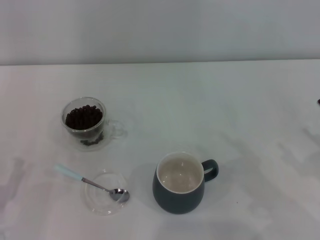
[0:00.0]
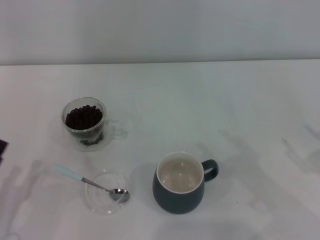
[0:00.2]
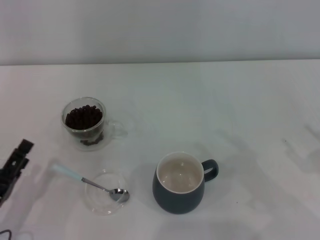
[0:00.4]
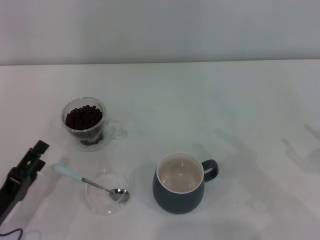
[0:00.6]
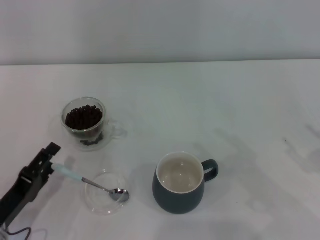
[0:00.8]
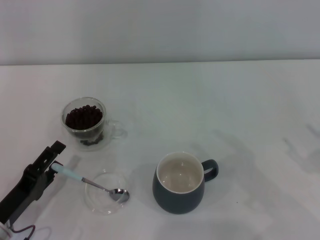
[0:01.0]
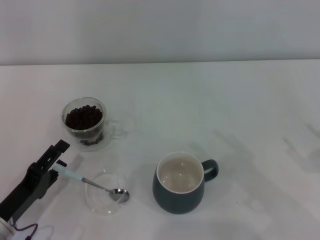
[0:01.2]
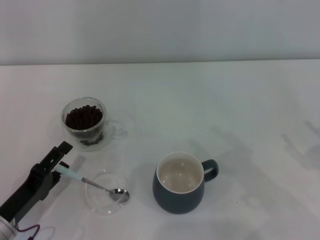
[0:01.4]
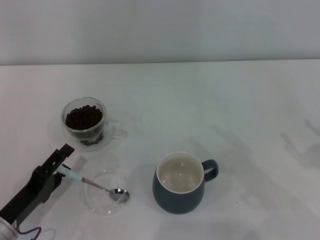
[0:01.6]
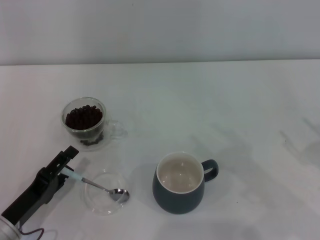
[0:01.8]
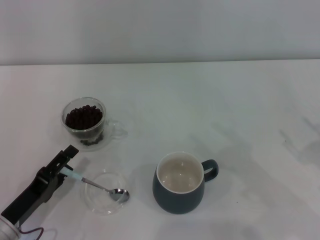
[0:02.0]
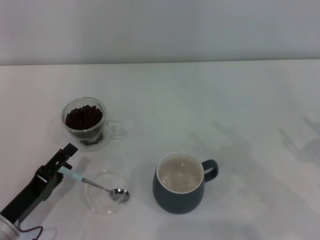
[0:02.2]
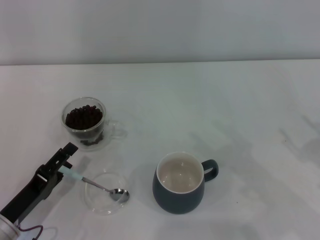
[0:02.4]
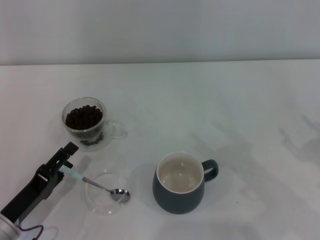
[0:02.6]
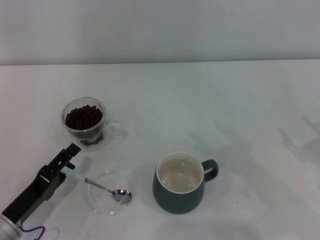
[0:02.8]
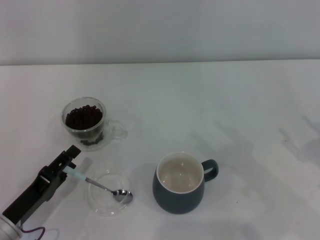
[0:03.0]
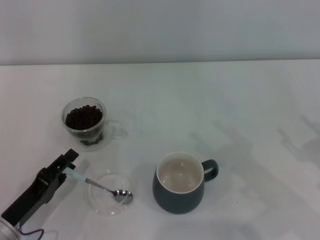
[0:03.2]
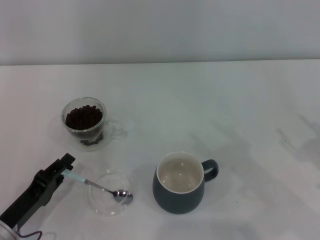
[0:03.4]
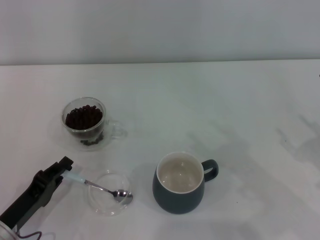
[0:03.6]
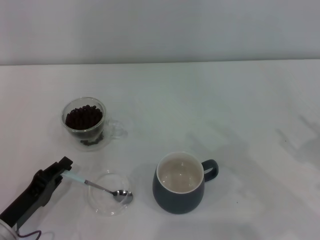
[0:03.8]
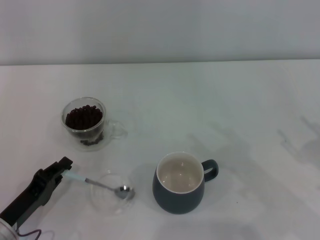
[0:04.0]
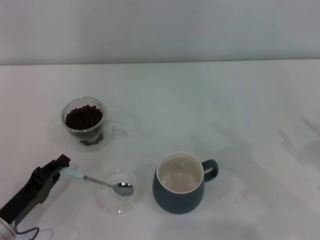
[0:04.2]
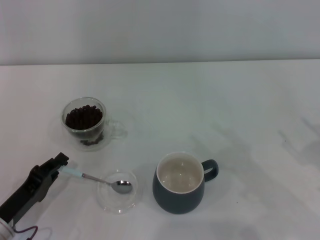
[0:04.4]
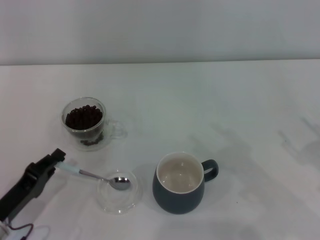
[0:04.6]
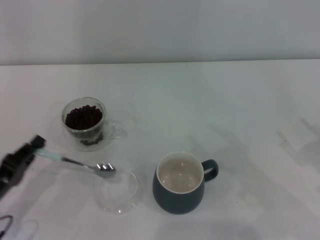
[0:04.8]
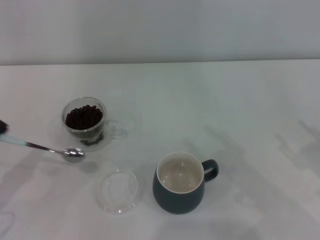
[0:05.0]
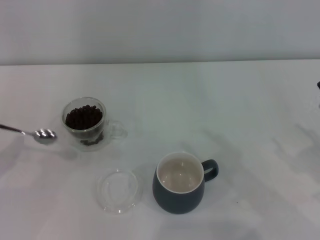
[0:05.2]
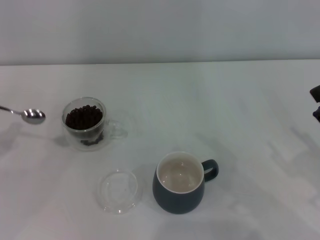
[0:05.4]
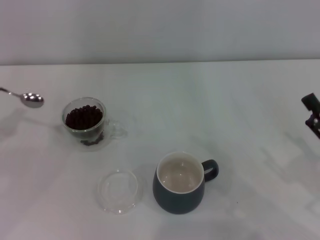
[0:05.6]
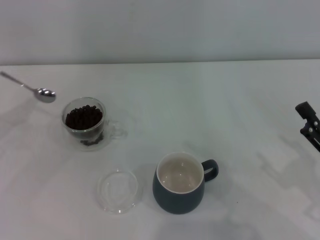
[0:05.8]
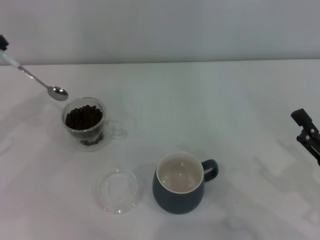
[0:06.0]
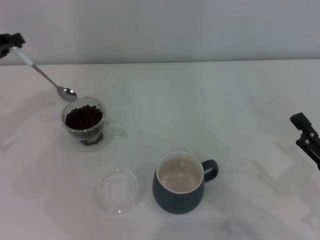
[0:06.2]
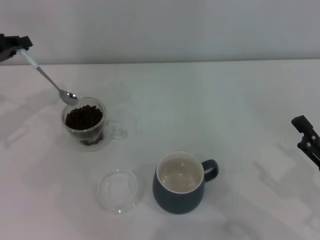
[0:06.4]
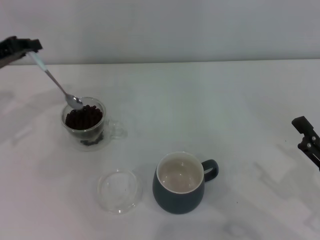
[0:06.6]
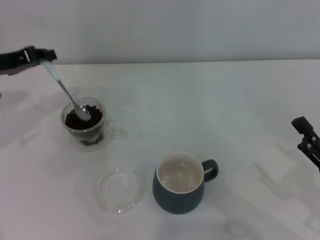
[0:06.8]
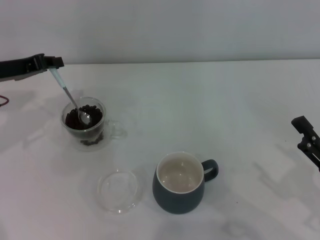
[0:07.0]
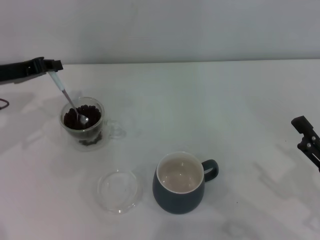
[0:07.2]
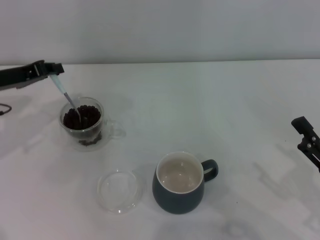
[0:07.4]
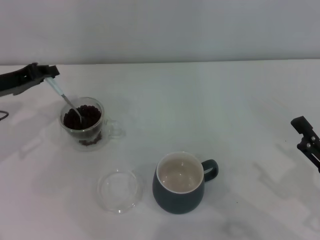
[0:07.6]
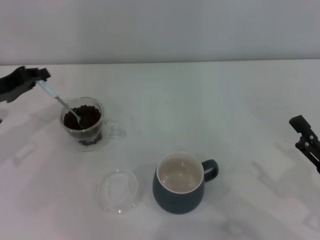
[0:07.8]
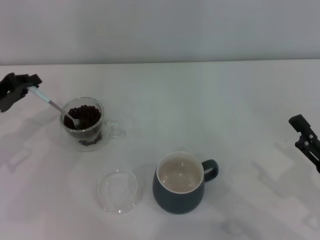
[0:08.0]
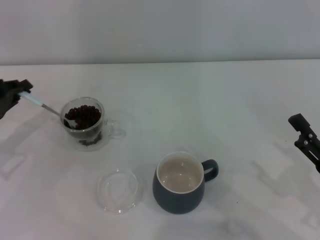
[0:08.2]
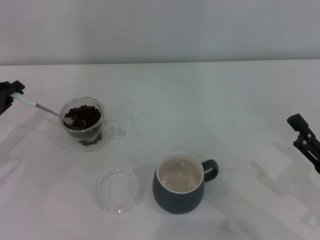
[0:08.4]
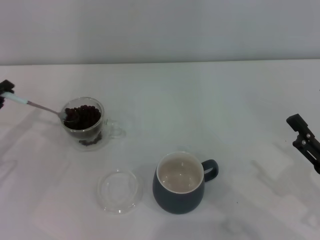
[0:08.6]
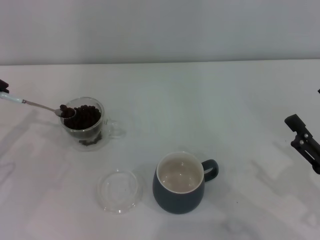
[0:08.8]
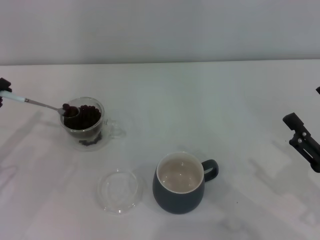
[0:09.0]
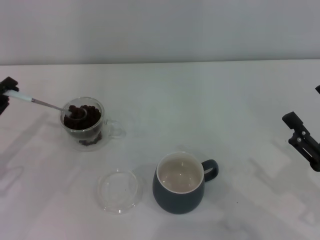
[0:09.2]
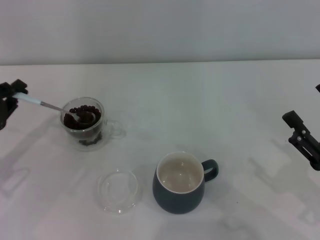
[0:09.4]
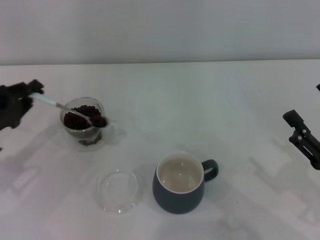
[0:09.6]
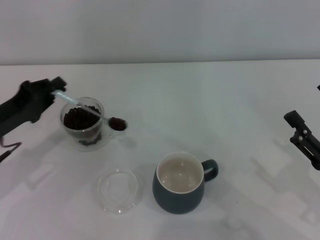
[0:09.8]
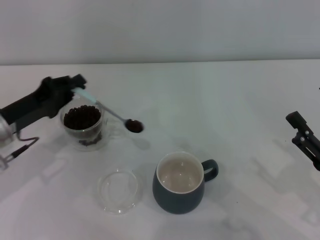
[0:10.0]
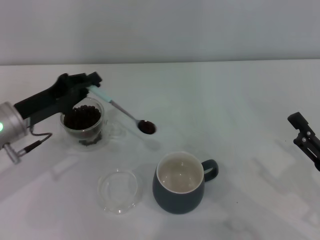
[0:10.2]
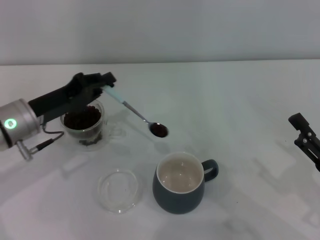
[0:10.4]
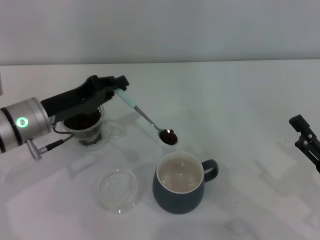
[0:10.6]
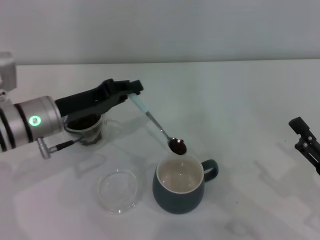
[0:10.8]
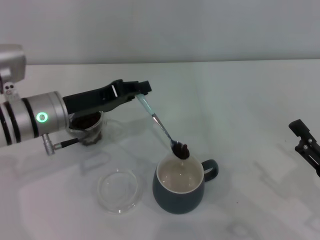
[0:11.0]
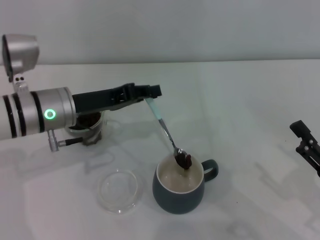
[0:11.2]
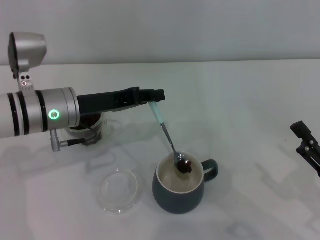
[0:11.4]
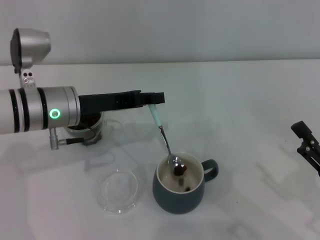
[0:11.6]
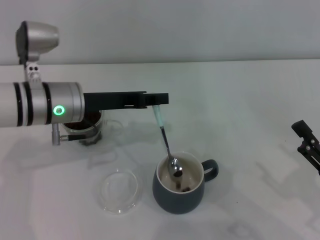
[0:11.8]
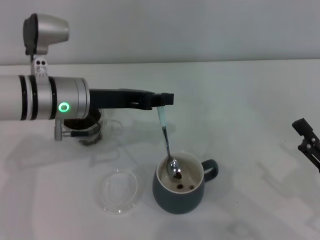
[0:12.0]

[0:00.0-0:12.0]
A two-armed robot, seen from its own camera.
Task of the whole recording: Use a blue spoon to take out the coffee beans from the glass and pour them into the gray cup.
Step, 0:00.0 to 0:04.8: Pick up the spoon with the right gripper.
0:00.0 to 0:01.6: The left gripper goes about 5 cm to the right.
0:01.6 to 0:03.0: Both grippers stay put.
0:03.0 to 0:04.4: The left gripper closes.
0:04.4 to 0:06.0: The left gripper heads forward, upward and to the left, covering some 25 cm.
0:06.0 to 0:07.6: The left gripper travels to the right by approximately 5 cm.
0:07.6 to 0:09.0: The left gripper travels backward by roughly 10 cm.
0:09.0 to 0:10.4: The left gripper heads to the right, covering approximately 10 cm.
0:10.4 to 0:12.0: The left gripper is displaced to the right and upward by some 10 cm.

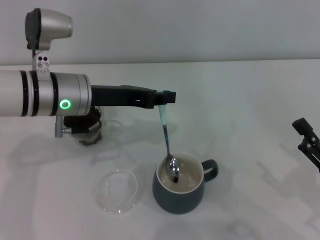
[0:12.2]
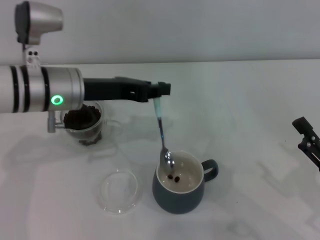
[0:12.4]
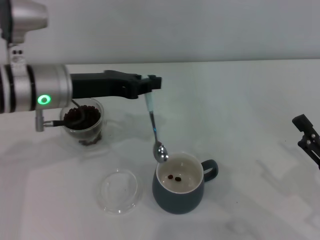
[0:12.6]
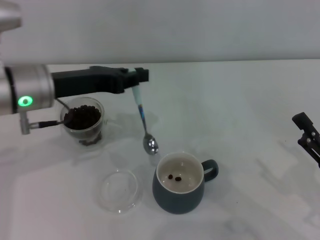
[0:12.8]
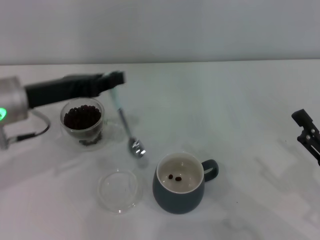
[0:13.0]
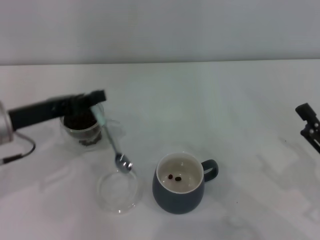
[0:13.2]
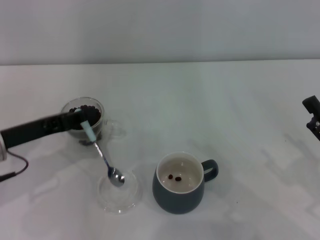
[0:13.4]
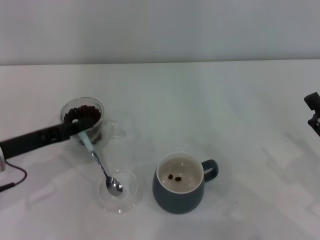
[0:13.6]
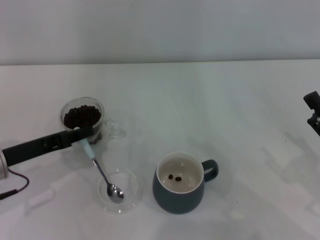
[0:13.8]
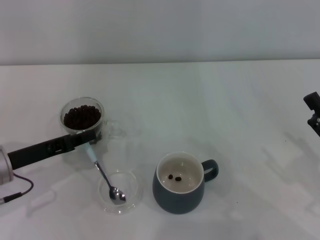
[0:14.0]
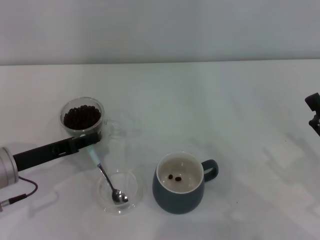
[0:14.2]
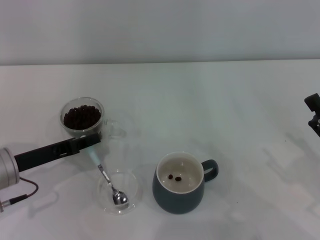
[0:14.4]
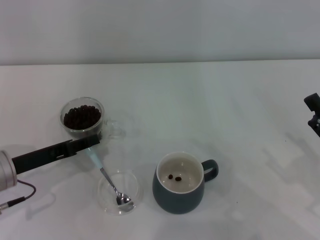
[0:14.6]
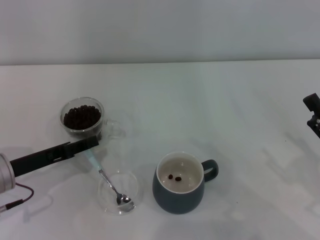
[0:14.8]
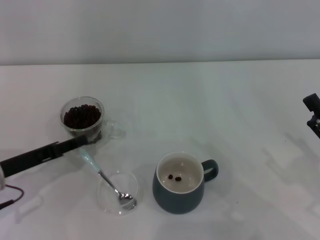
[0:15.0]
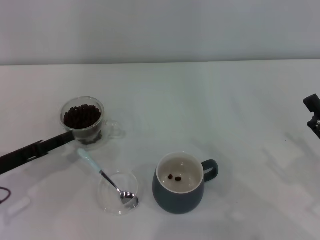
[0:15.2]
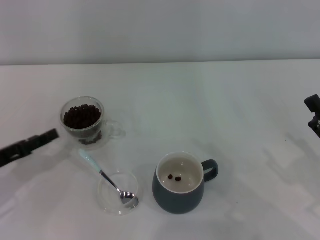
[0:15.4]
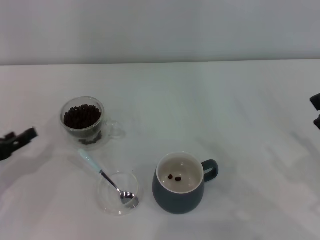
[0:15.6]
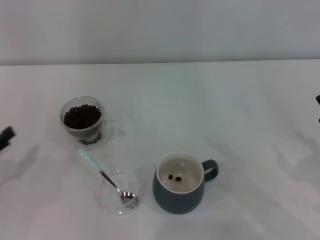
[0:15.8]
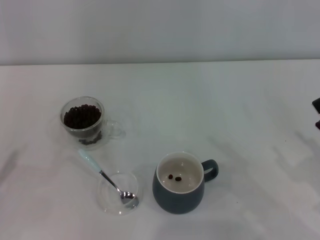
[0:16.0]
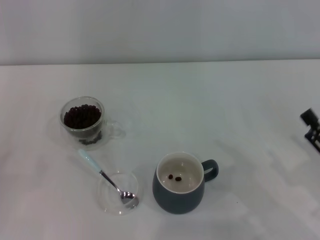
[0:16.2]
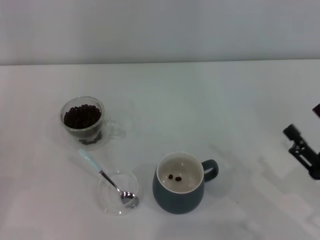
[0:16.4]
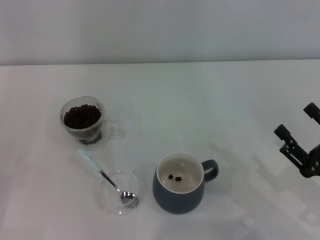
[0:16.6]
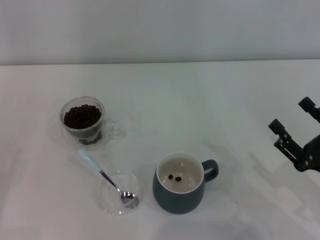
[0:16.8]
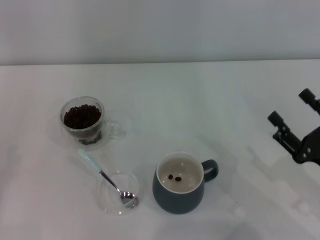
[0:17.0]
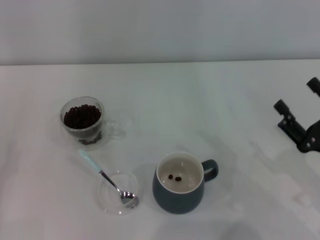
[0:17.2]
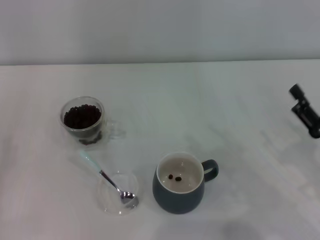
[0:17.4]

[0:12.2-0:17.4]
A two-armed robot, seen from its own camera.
Task of the whole recording: Use a blue spoon to take out the coffee beans from the glass and pour them into the gray cup.
0:12.2 to 0:14.0: The left gripper goes roughly 15 cm to the left, downward and backward.
0:14.0 to 0:15.6: The left gripper is displaced to the left by roughly 10 cm, and opens its fingers.
0:15.6 to 0:17.4: The left gripper goes approximately 5 cm backward and to the left.

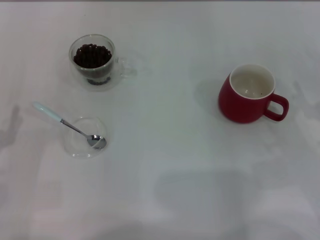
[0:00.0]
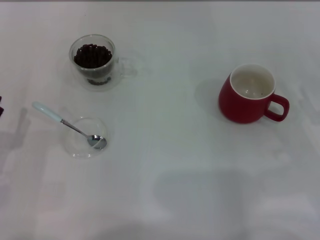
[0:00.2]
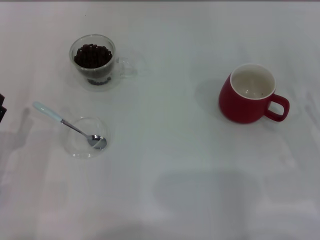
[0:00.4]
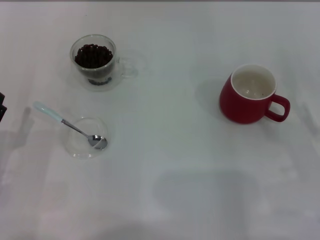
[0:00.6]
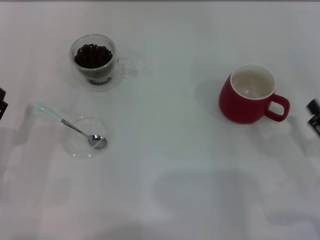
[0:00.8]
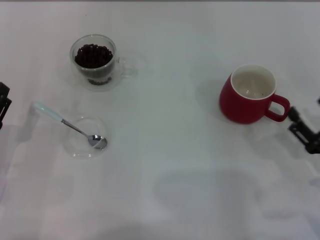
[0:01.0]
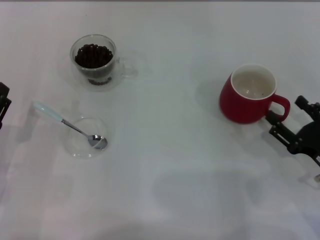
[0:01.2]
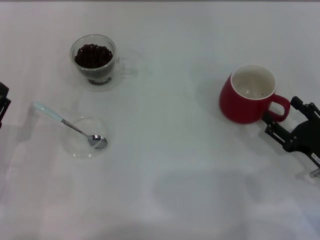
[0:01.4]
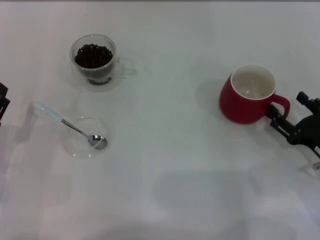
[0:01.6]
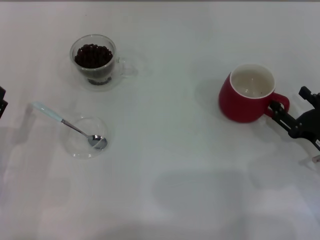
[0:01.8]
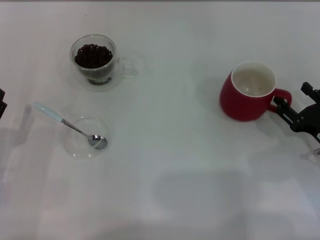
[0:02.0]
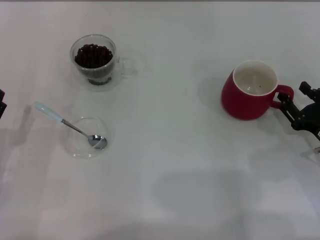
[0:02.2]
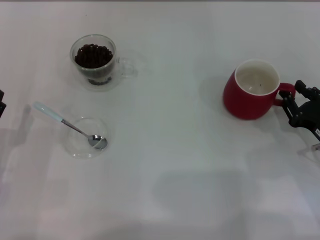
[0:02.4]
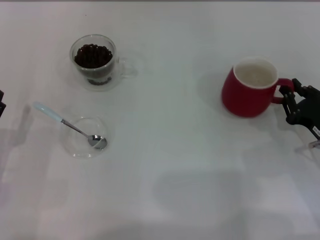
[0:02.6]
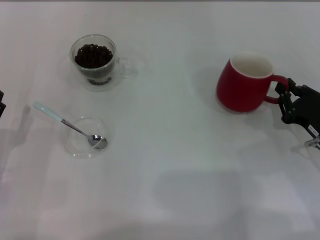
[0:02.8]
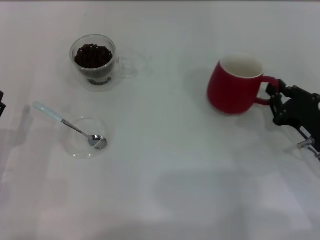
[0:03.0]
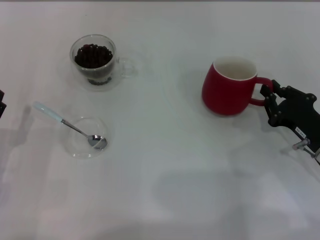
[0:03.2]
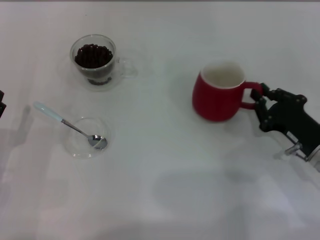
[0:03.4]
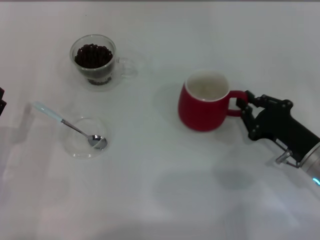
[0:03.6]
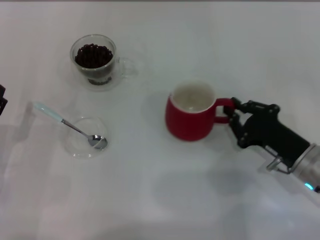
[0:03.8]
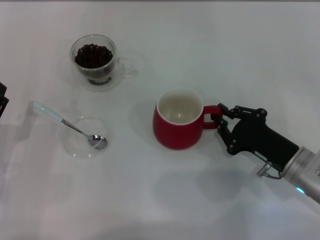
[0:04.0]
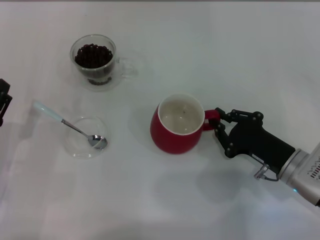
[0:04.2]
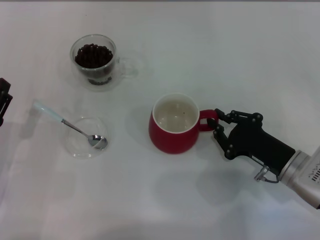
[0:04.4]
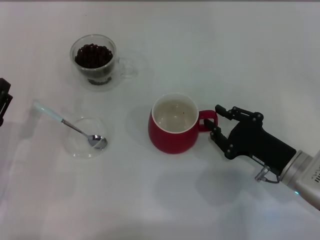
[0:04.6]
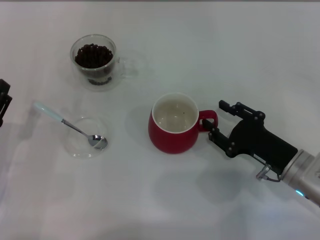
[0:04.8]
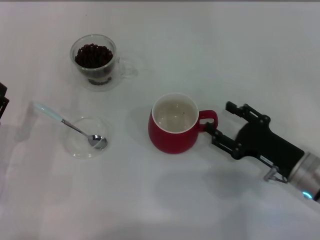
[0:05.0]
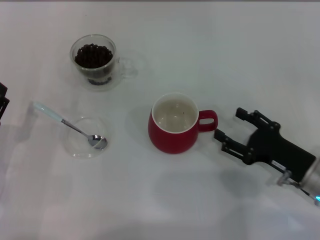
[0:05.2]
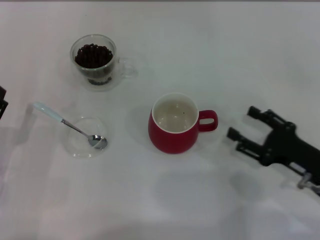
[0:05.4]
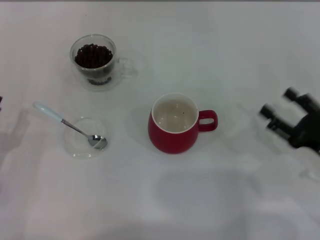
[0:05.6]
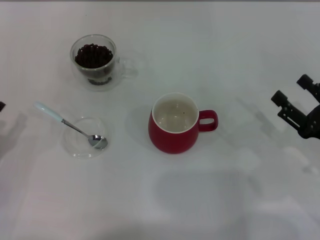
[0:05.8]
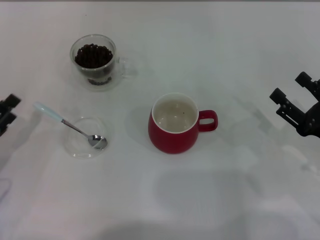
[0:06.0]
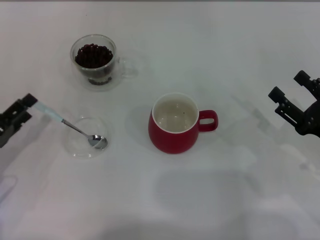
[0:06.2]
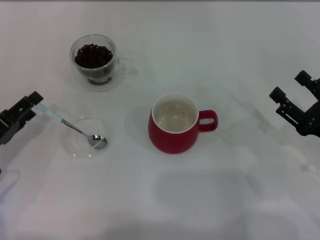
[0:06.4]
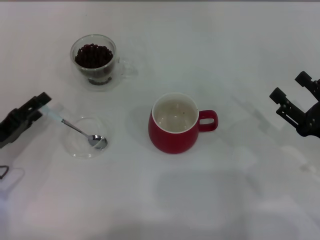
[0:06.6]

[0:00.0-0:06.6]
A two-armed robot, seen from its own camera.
Task of the whole recording: Use a blue spoon to take out the coffee beans from the glass and pour them into the red cup.
Step, 0:00.0 to 0:05.2: Move the cup to the center of view with the left gripper.
0:01.6 to 0:03.2: The right gripper closes up.
0:03.2 to 0:05.0: The right gripper opens up.
0:05.0 to 0:06.6: The right gripper is displaced to the right by about 5 cm, while the left gripper shifts by approximately 5 cm.
